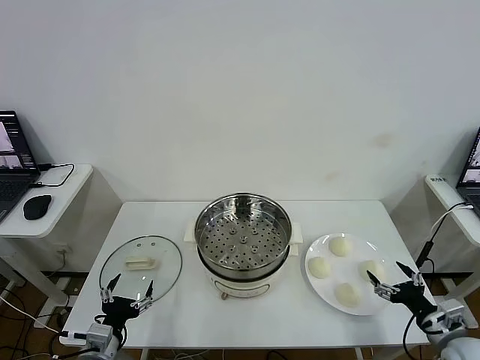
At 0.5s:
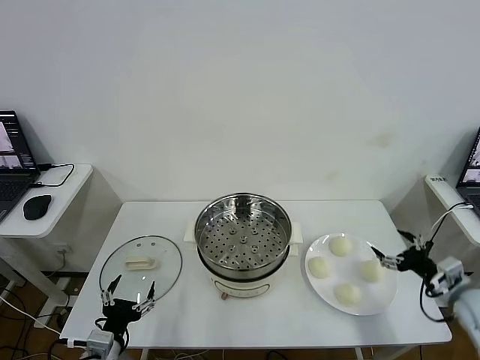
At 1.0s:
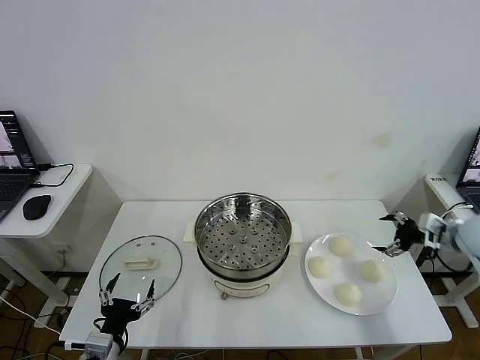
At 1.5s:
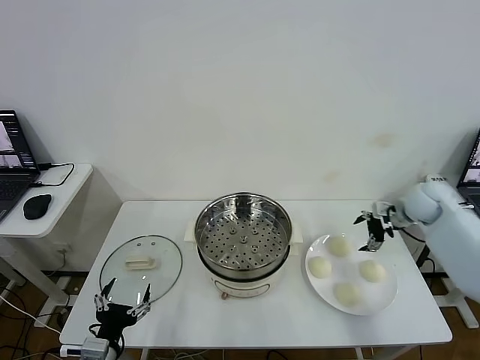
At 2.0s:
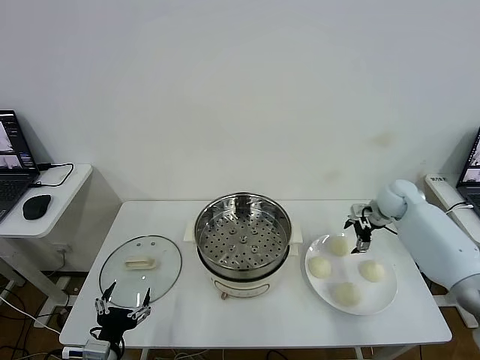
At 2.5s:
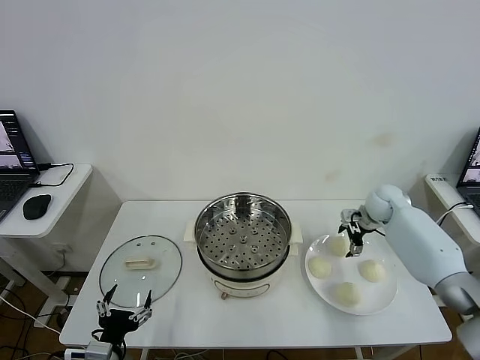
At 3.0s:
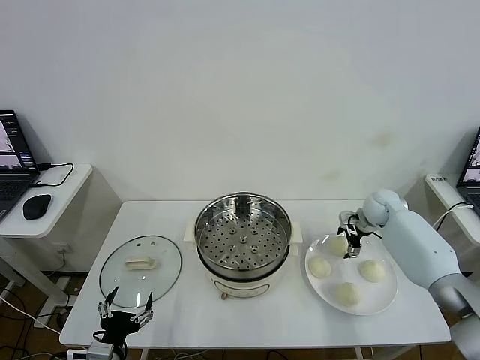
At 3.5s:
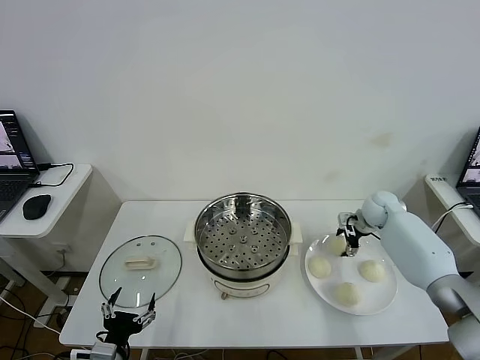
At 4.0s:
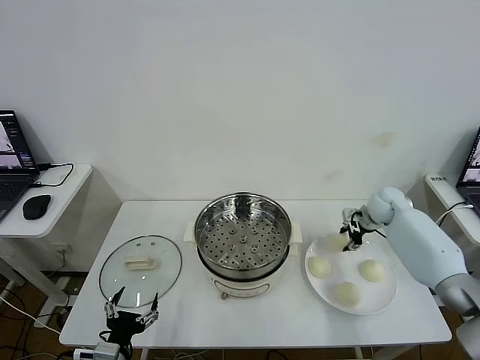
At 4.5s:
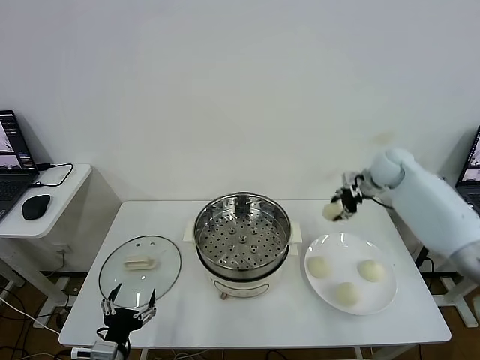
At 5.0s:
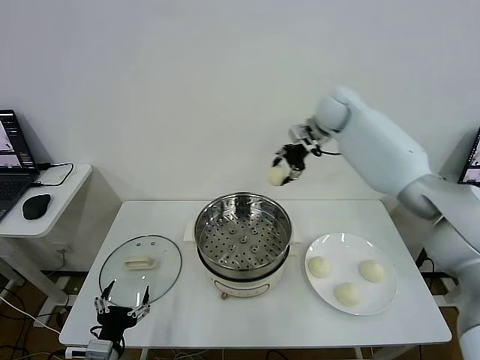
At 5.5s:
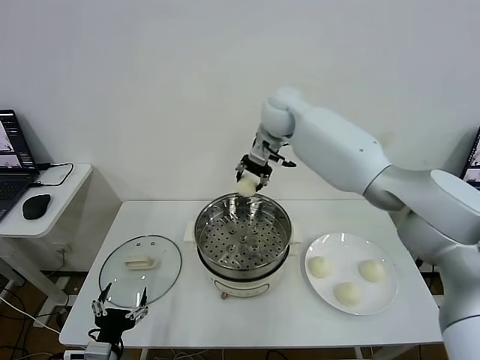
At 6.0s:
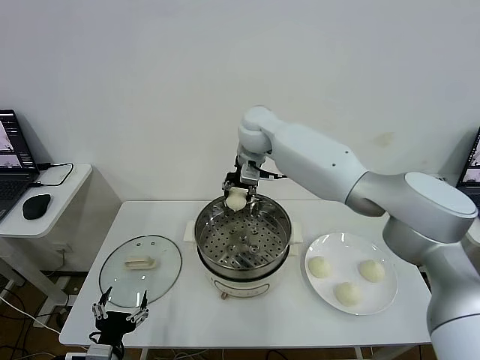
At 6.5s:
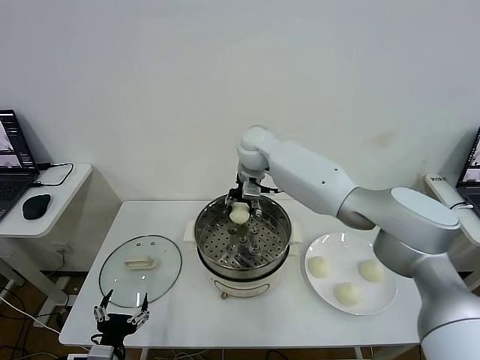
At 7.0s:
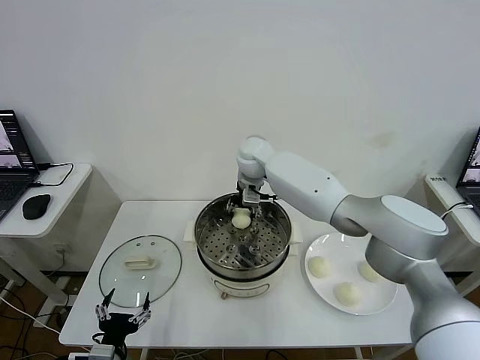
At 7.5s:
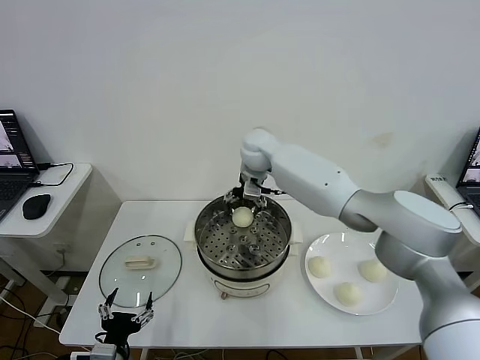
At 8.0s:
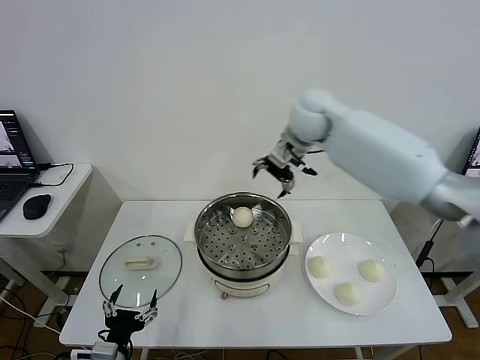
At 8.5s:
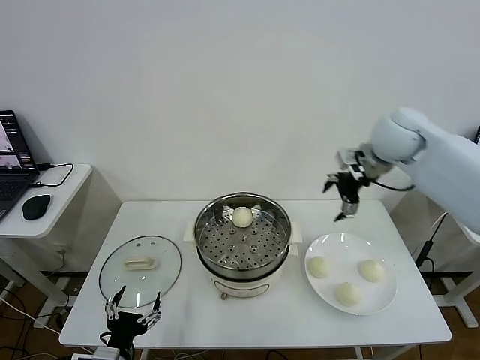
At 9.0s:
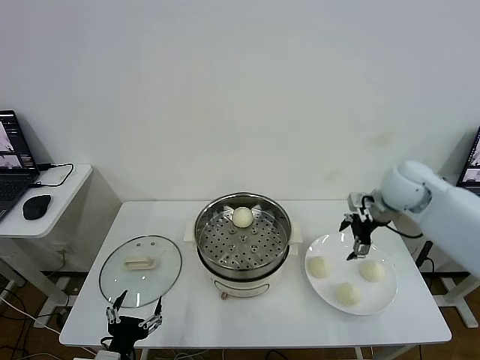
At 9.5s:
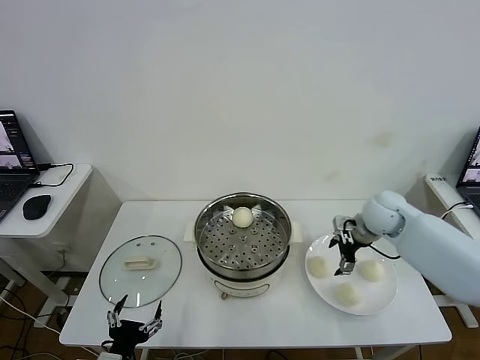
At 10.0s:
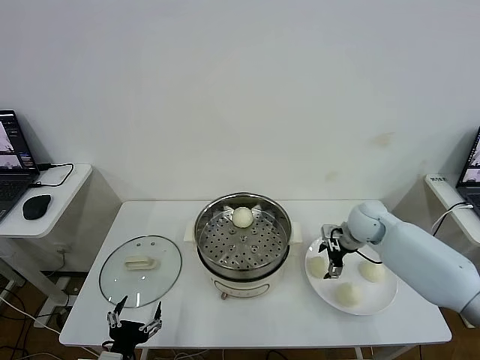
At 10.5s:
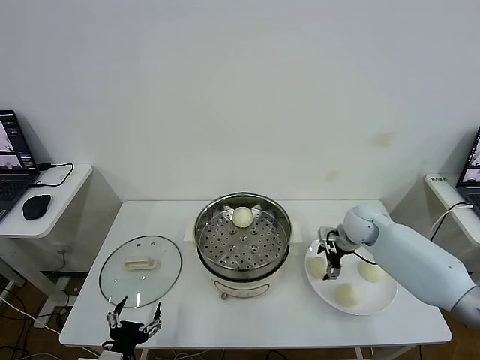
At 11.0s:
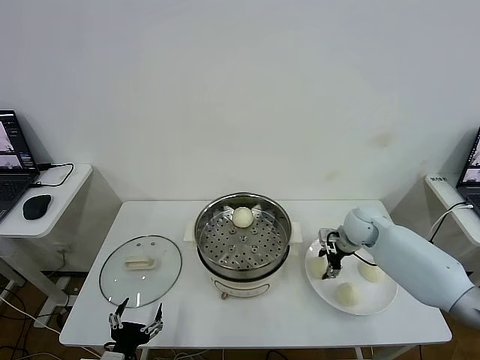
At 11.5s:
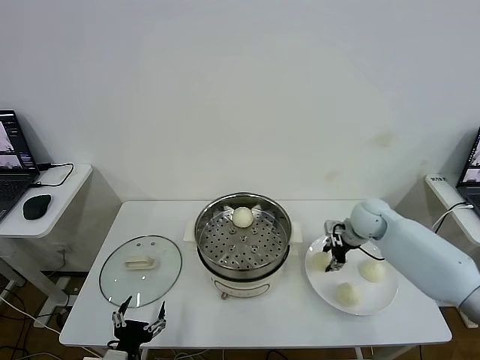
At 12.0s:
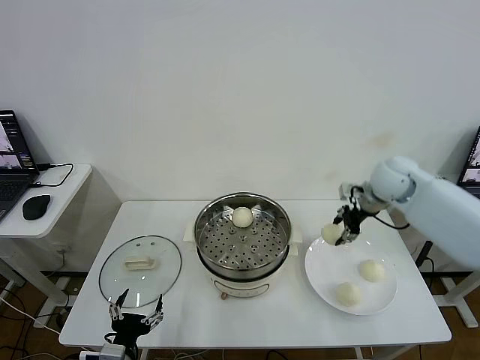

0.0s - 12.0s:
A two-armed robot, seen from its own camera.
Step, 0.0s - 3.5s: Grasp the baozi in the plate with right gripper.
Step, 4.0s - 7.0s: Place the baozi on the steamer with right gripper.
Step, 7.5s - 11.0s: Grasp the baozi in the plate with right gripper.
2.0s - 4.0s: The right gripper closes.
4.0s - 6.0s: The right gripper travels to the left and upward by some 40 cm.
6.0s - 8.0s: The right gripper shifts some 15 cm to the right and upward, and opens its fingers.
8.0s - 10.0s: The right gripper moves downward and to the right, roughly 30 cm.
10.0s - 12.0s: The right gripper travels upward by some 15 cm, and closes.

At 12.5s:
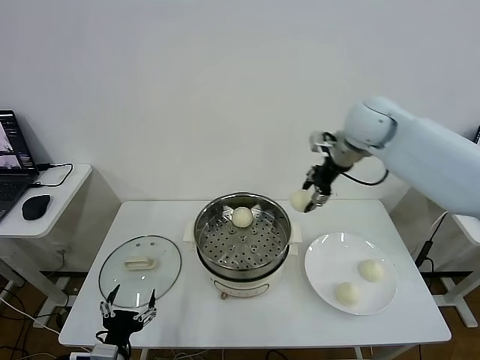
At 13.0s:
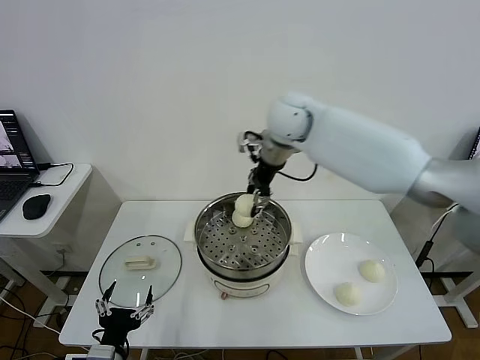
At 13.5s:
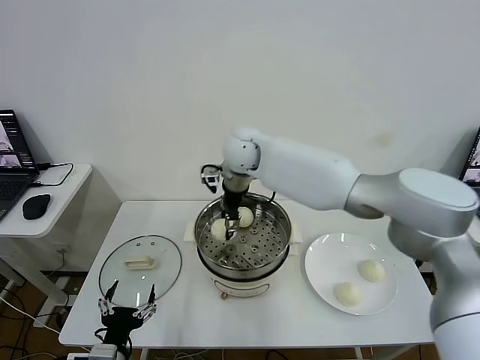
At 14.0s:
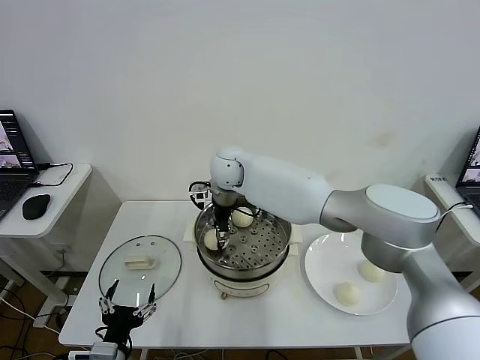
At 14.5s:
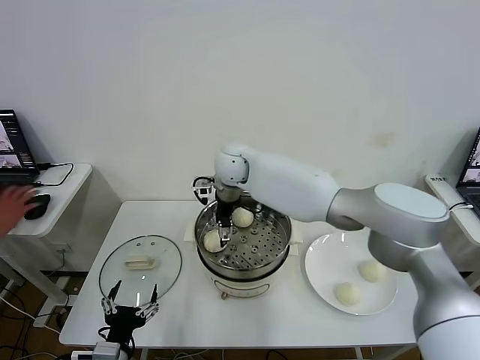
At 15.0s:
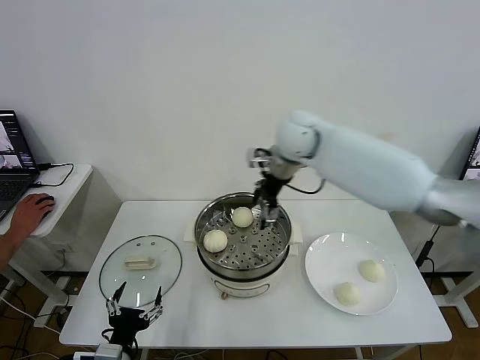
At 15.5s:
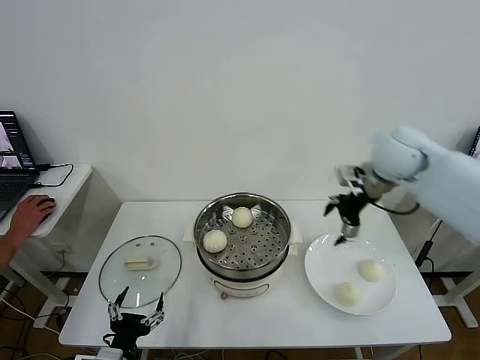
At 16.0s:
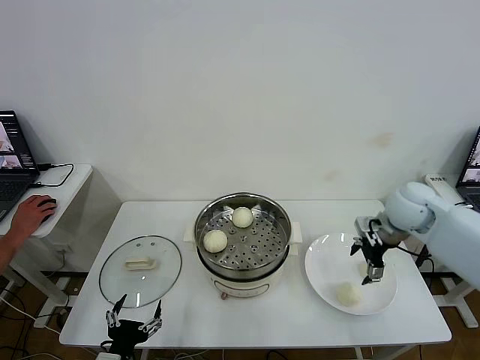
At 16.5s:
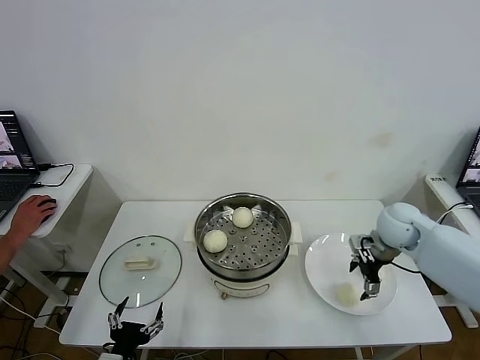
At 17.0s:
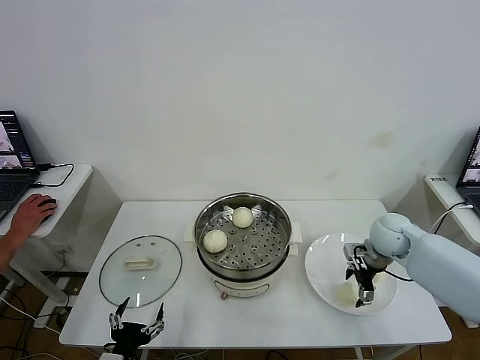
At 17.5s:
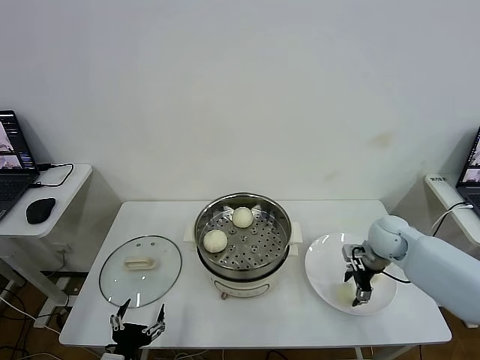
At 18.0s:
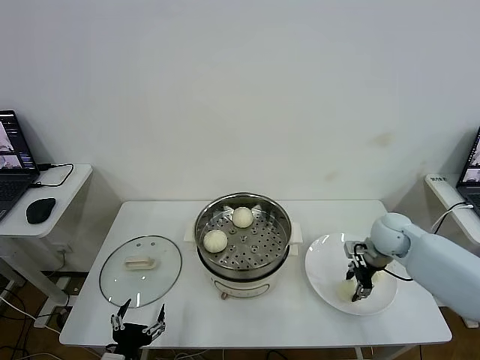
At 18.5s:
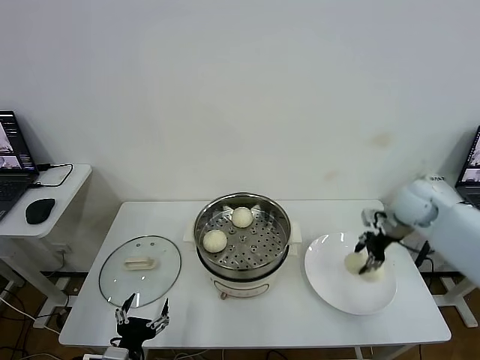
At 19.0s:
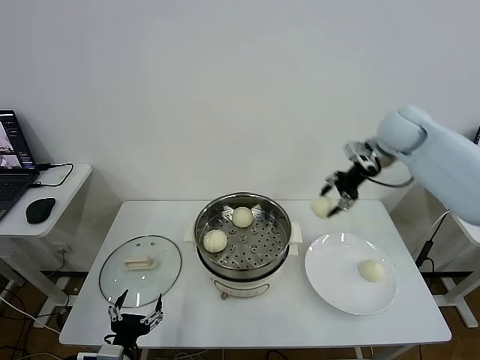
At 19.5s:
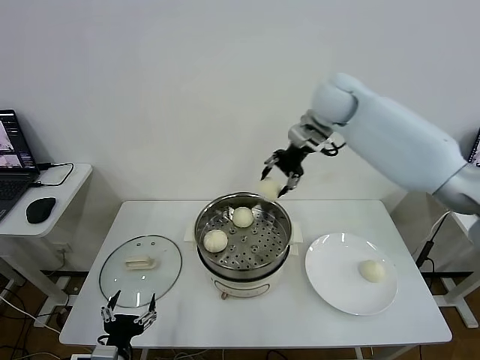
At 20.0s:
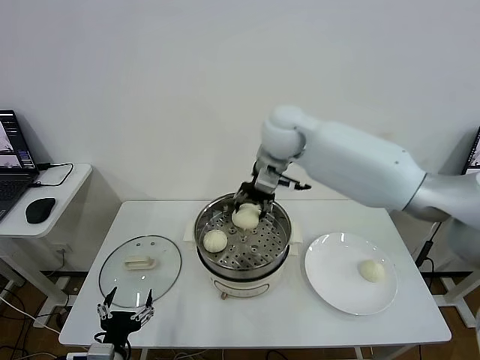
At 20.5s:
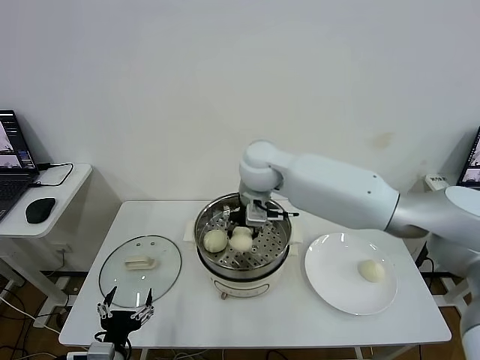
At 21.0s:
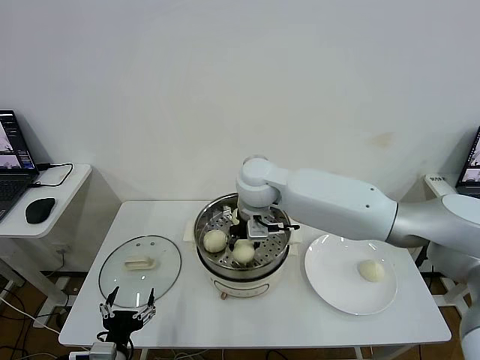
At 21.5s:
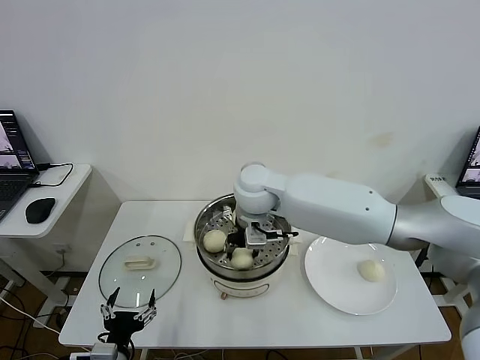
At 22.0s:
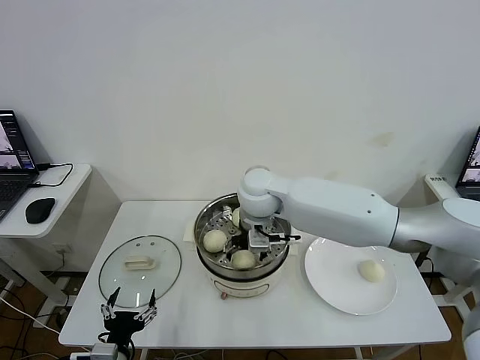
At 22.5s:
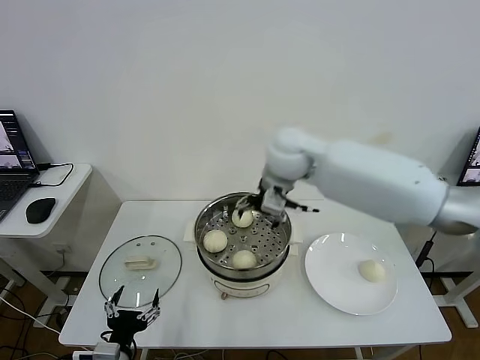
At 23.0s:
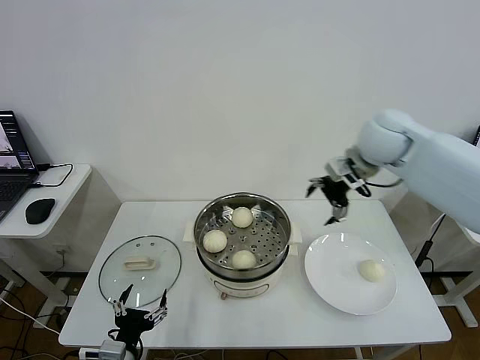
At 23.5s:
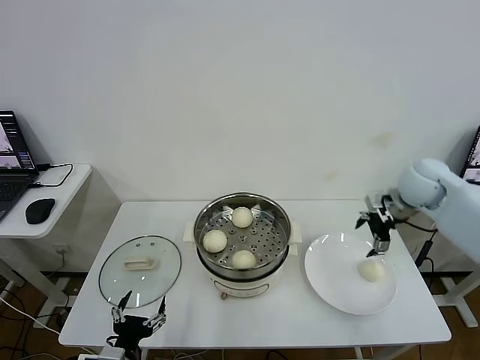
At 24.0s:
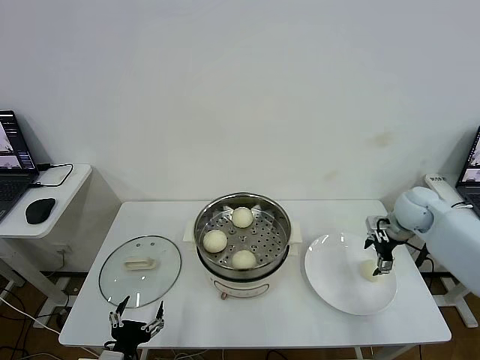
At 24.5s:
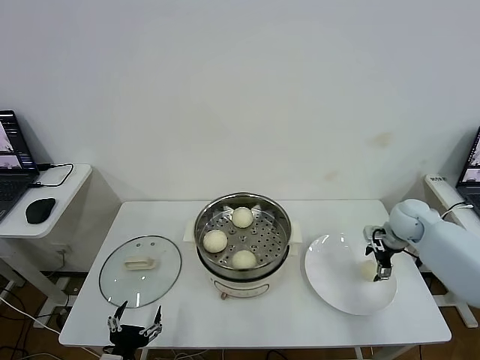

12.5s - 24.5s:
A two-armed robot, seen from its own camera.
Step, 14.5s - 17.5s: Grasp the baozi in the plate with right gripper.
Step, 18.0s - 21.5s: Place the baozi on the steamer with right gripper.
12.5s - 14.5s: The right gripper is displaced to the left and downward by some 25 cm, and opens its fingers.
14.5s - 16.5s: The right gripper shifts about 35 cm to the right.
16.5s - 18.5s: The right gripper is displaced upward by about 10 cm, and closes up.
18.5s - 20.5s: The right gripper heads to the left, covering roughly 35 cm.
20.5s - 22.5s: The right gripper travels to the right and upward by about 10 cm, and opens its fingers.
22.5s - 24.5s: The right gripper heads to the right and downward, covering approximately 35 cm.

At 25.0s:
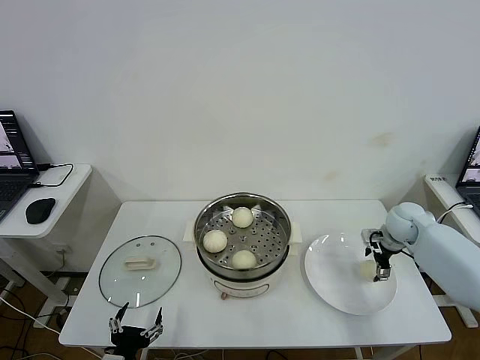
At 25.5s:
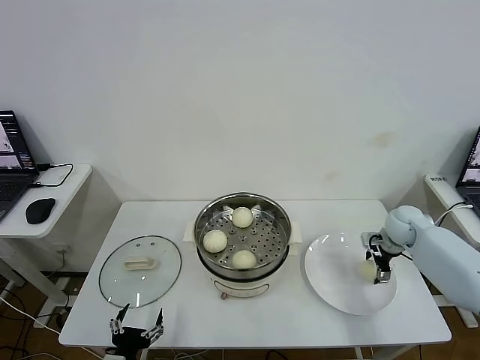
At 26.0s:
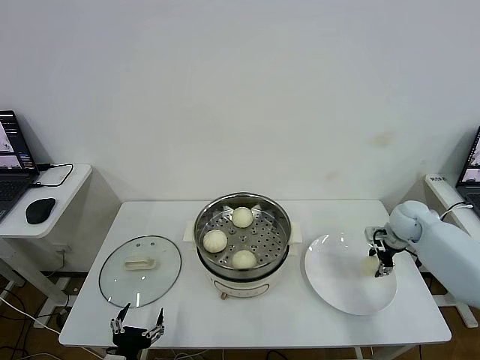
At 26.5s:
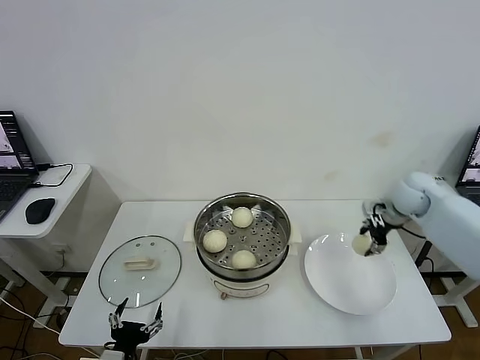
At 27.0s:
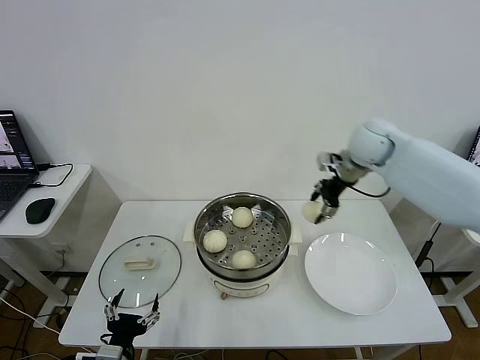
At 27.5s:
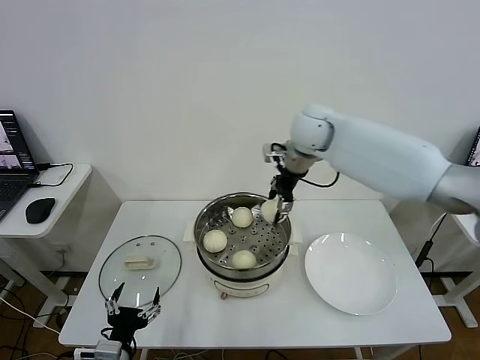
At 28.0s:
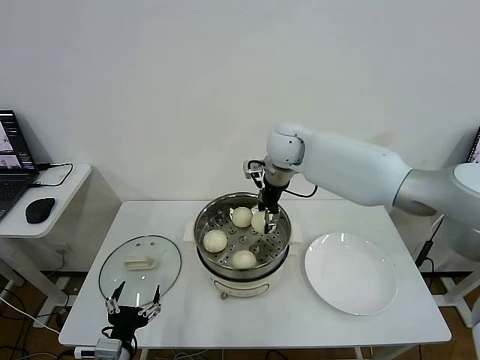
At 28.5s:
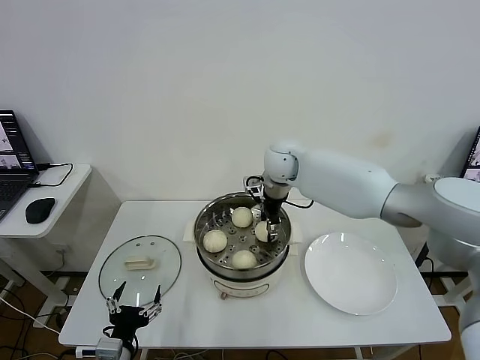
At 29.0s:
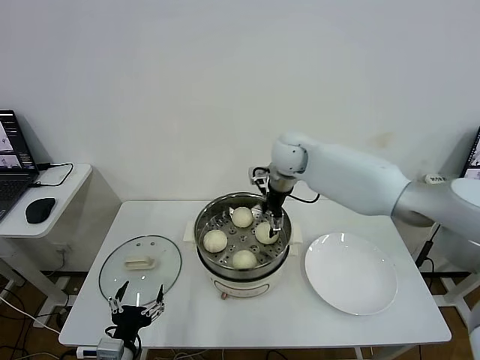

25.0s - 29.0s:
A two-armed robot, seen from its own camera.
Step, 26.0s - 28.5s: Place the baozi on the steamer with right gripper.
25.0s - 27.0s: The right gripper moves upward and to the left, some 25 cm, and closes.
27.0s - 29.0s: The right gripper shifts some 15 cm to the left, and opens up.
